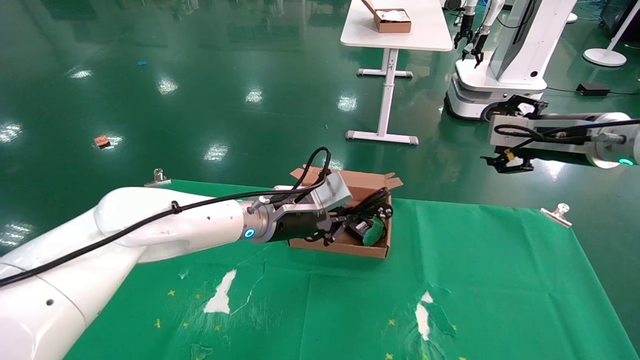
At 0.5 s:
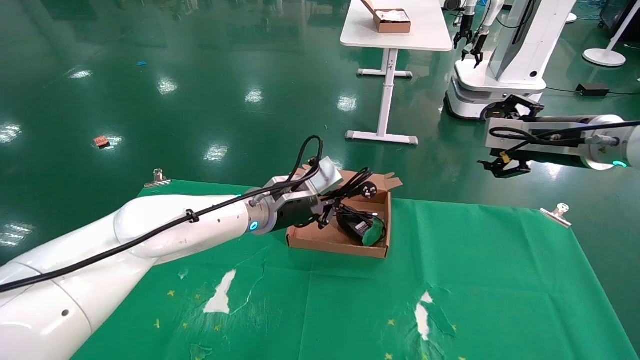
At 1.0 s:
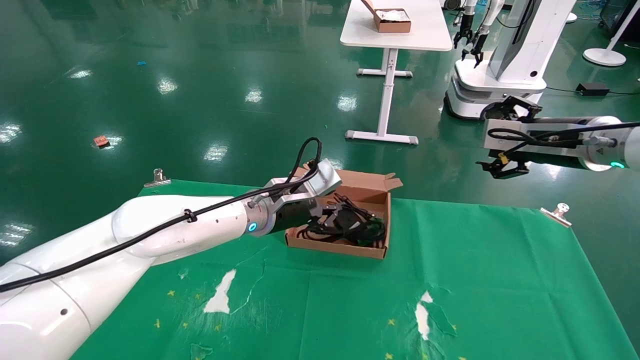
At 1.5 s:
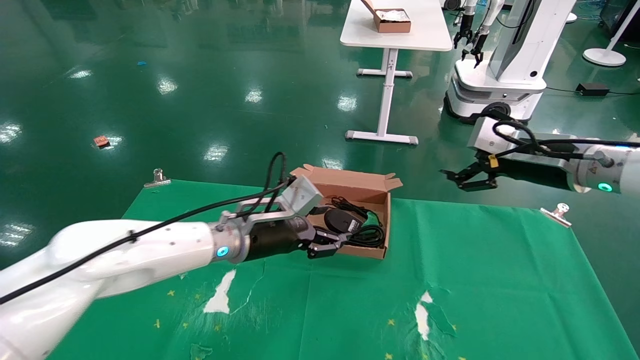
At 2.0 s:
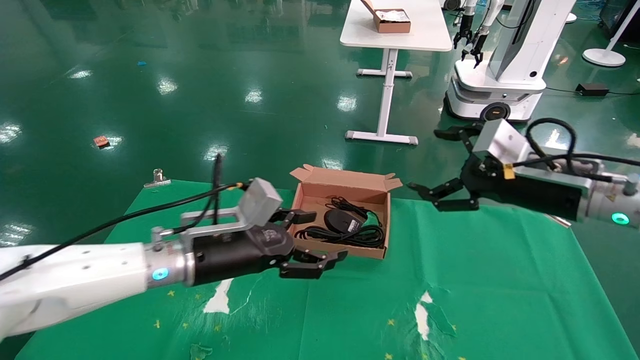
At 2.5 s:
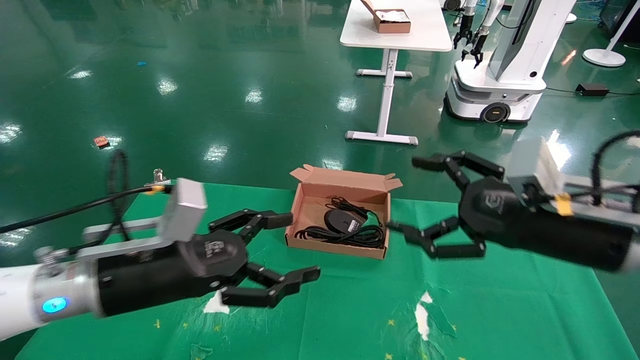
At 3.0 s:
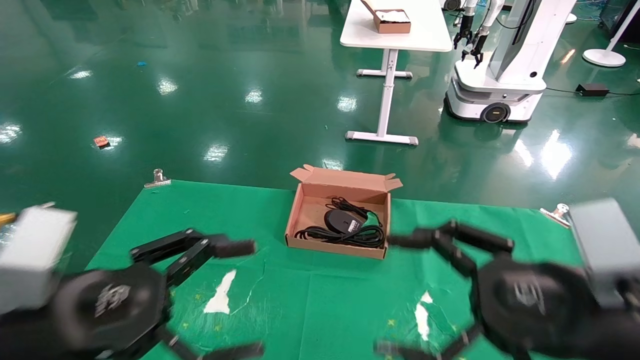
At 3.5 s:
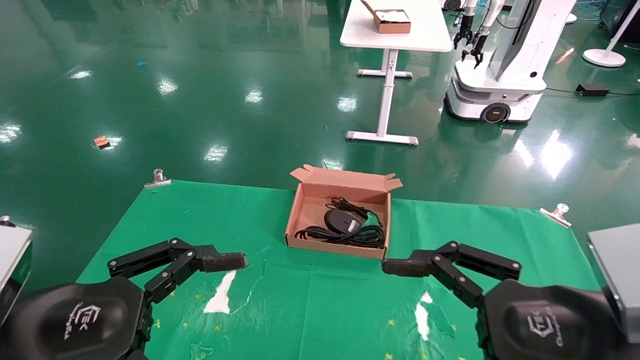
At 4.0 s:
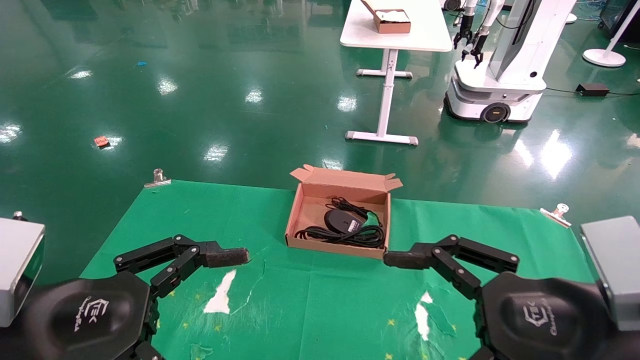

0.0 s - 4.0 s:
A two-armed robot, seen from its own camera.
Step, 0.0 s - 2.0 s: Place the mouse and power cord into the box.
0.0 s - 2.0 s: The right gripper shifts some 10 cm backward, to the left and downward. The left gripper shifts about 10 cm backward and to the left, and opens up.
2.0 s - 4.0 s: The left gripper is displaced backward and to the left by some 20 cm. Meanwhile the right gripper heads backward, covering roughly 20 cm.
